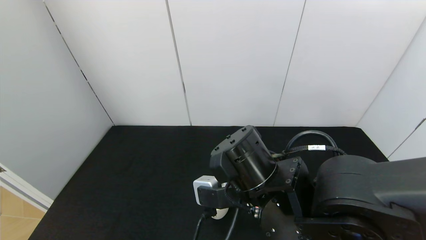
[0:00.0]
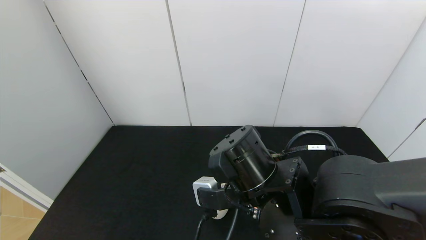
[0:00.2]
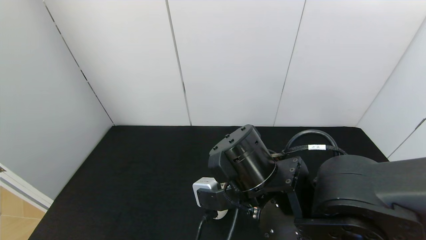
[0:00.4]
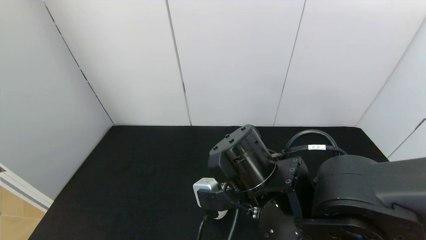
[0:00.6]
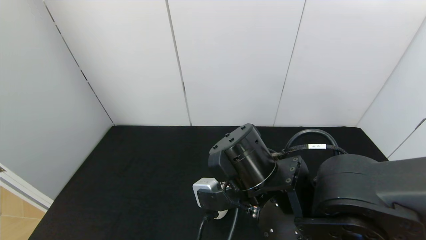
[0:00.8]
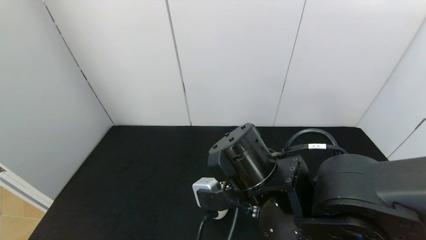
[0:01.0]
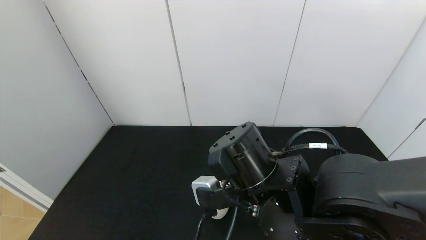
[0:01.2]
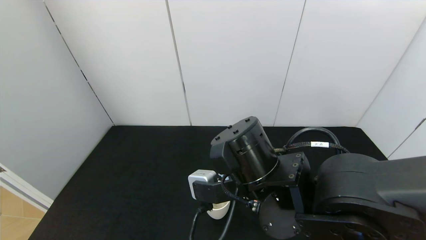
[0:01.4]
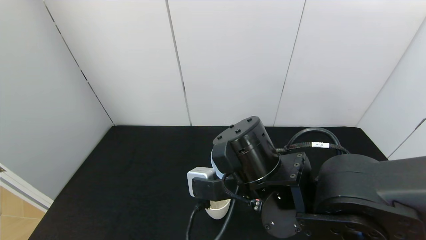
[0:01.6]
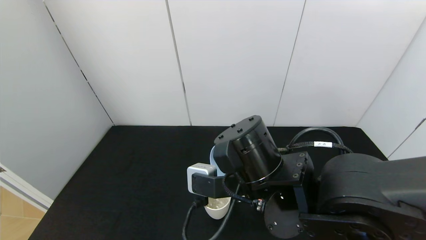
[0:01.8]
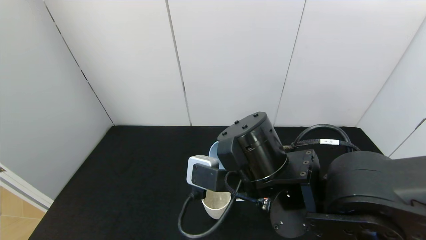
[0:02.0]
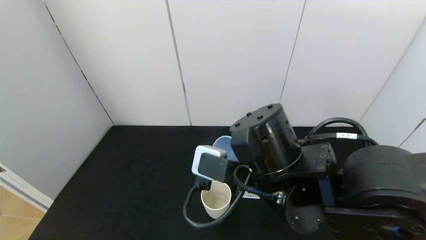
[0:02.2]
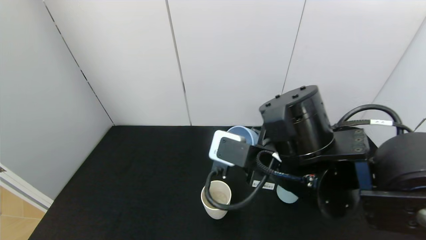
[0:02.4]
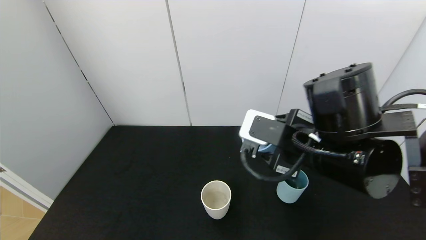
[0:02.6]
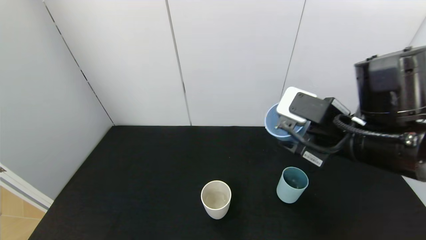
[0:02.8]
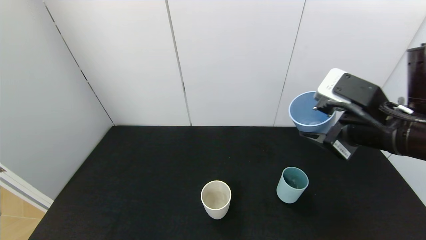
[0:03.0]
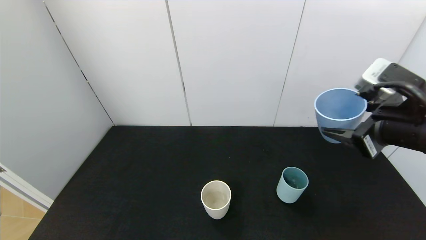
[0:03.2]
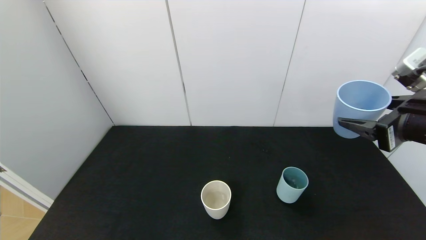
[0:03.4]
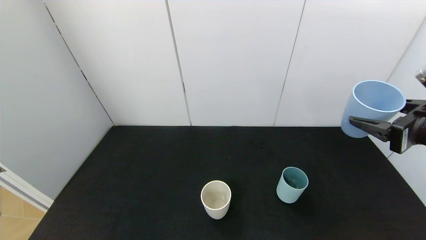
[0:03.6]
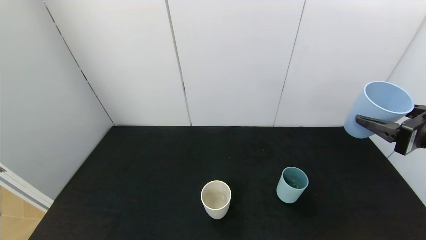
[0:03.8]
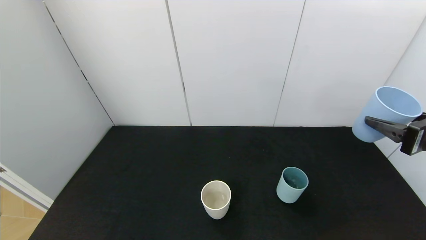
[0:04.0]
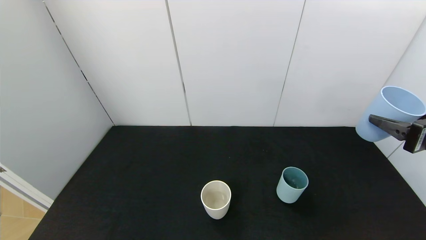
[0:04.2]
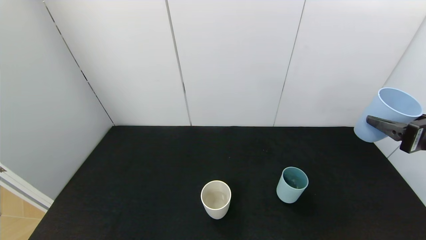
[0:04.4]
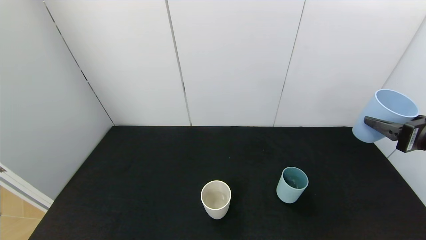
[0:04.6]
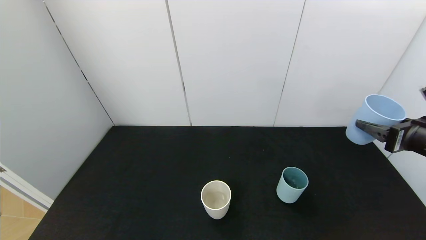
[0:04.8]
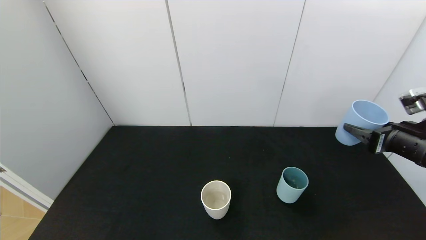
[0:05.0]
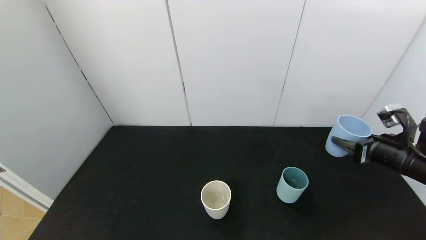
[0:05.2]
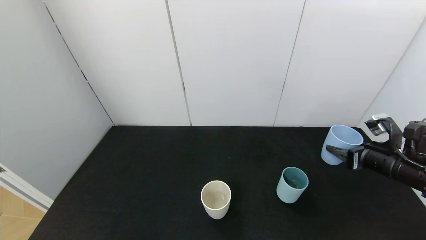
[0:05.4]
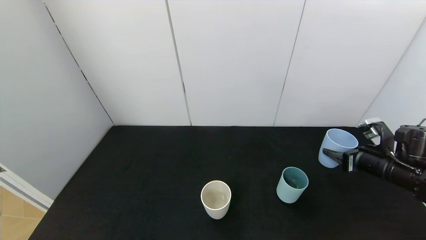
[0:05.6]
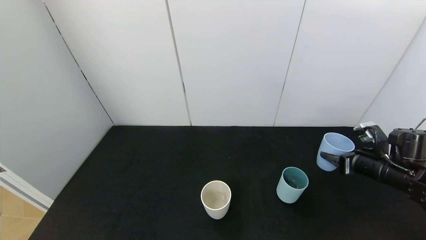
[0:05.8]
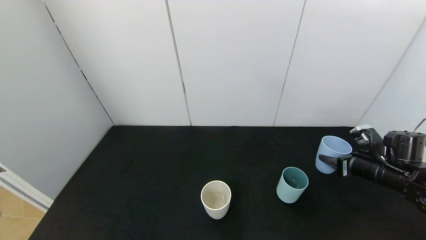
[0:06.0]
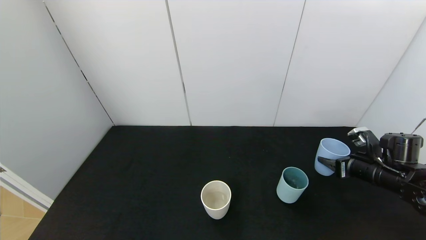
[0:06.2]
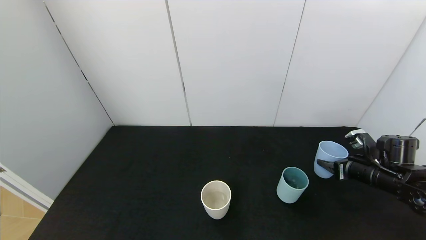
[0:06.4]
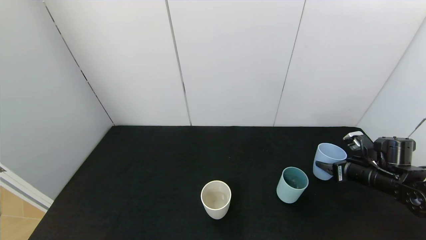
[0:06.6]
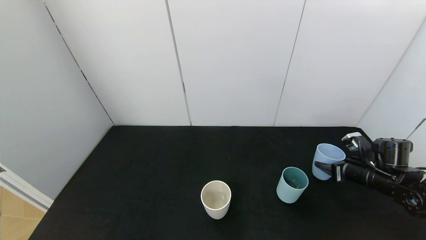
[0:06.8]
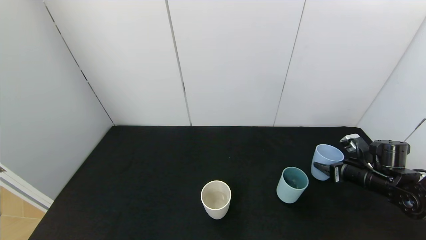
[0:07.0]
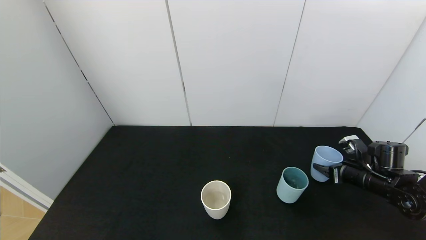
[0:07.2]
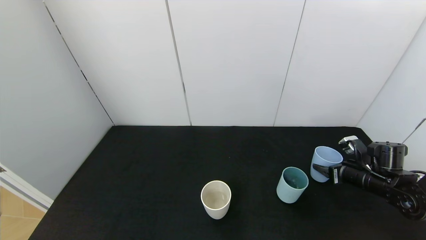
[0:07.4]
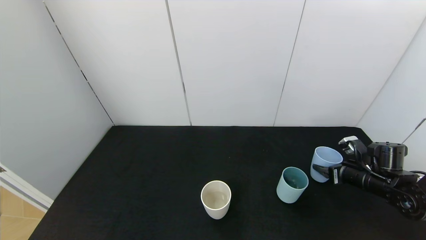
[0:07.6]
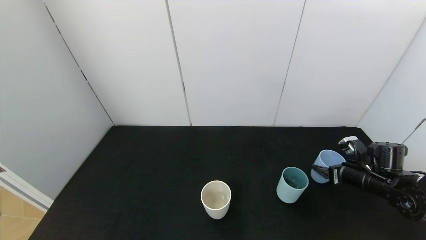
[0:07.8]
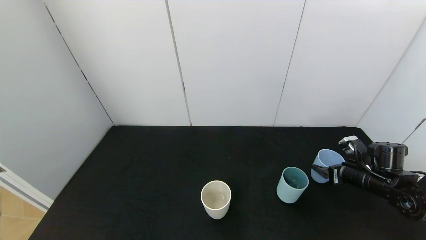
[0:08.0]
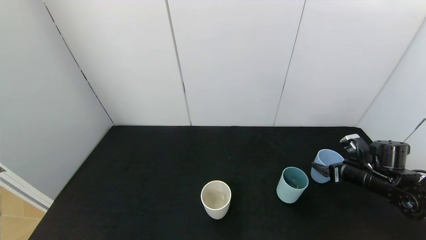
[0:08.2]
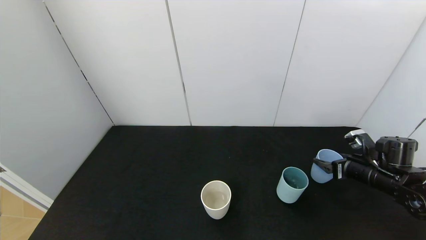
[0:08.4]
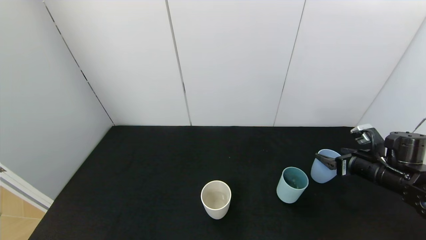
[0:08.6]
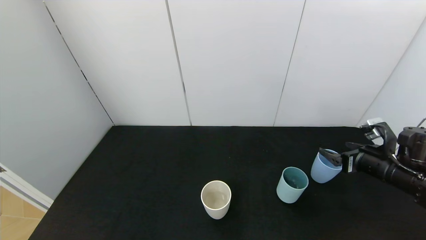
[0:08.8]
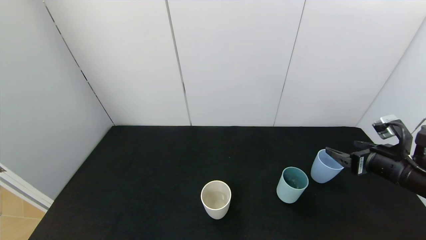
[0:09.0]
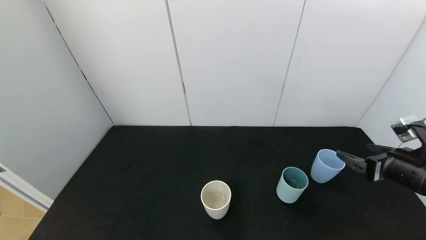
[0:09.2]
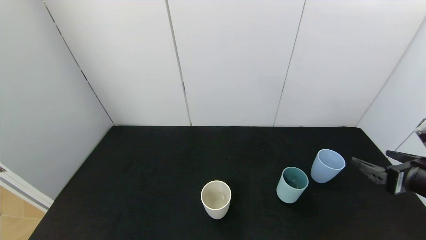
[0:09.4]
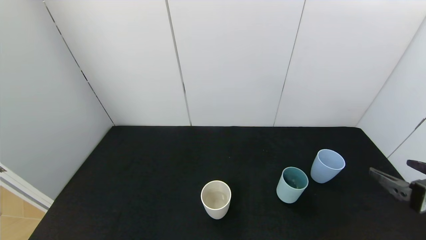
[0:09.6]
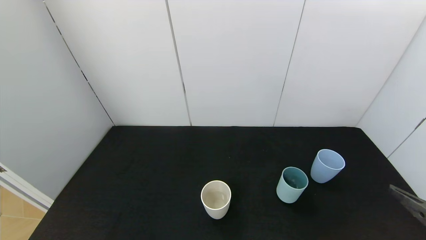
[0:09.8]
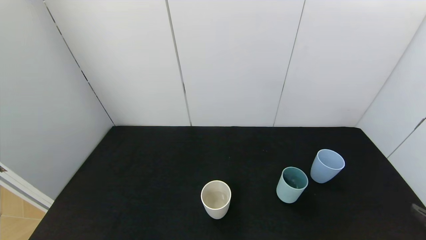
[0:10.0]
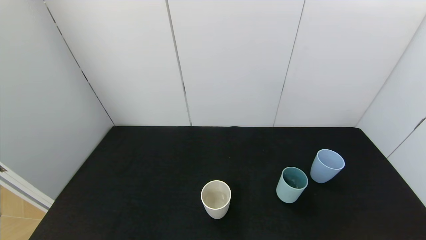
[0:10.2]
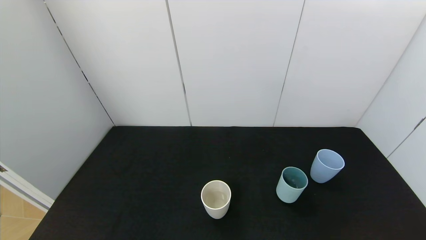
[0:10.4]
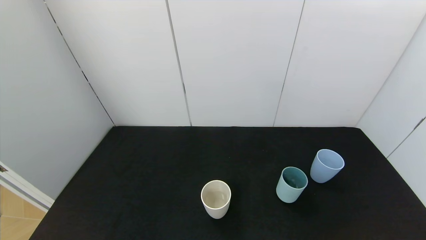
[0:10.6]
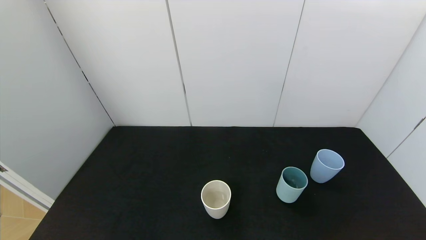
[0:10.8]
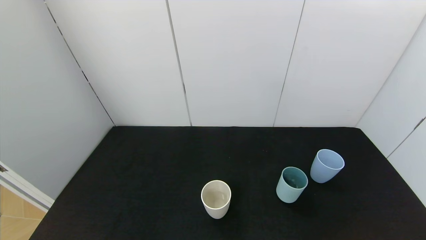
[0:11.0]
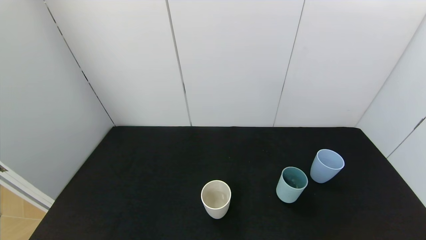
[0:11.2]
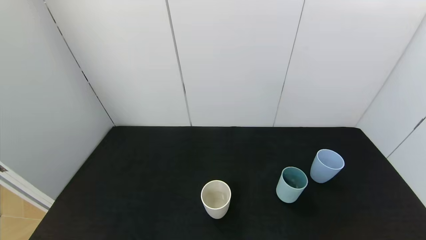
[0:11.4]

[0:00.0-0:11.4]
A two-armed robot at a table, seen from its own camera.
Task of the whole recording: use the gripper to pour the water into the other two cups on black table.
Step, 0:01.8 to 0:09.0: Place the blue cup with the right gripper.
0:00.0 to 0:01.4: There are only small adjustments of the grippers.
0:01.4 to 0:02.8: The right gripper heads to the right and upward, covering some 15 cm.
0:02.8 to 0:04.2: The right gripper moves to the right, about 20 cm.
0:04.2 to 0:05.6: The right gripper shifts approximately 15 cm downward and forward.
0:05.6 to 0:07.2: The right gripper goes approximately 5 cm downward.
0:07.2 to 0:08.6: The right gripper opens its fingers.
0:08.6 to 0:10.0: The right gripper shifts some 25 cm backward.
